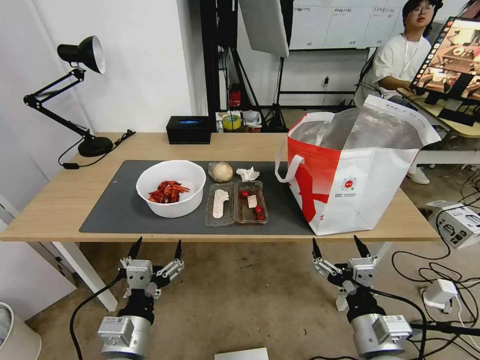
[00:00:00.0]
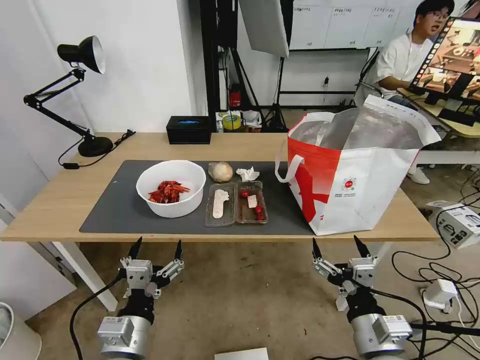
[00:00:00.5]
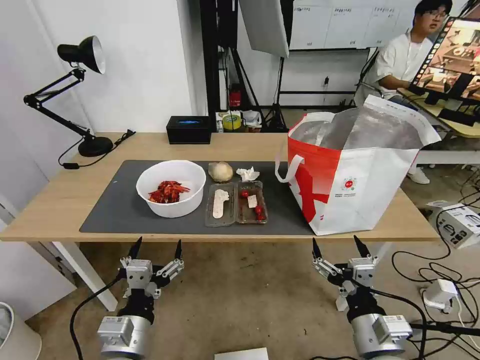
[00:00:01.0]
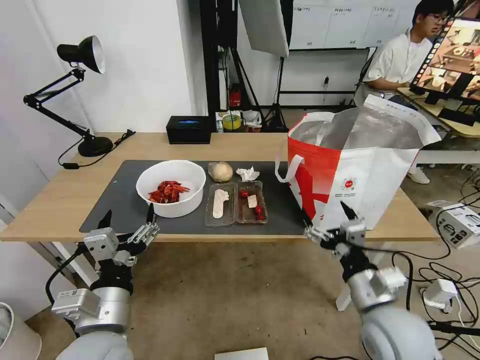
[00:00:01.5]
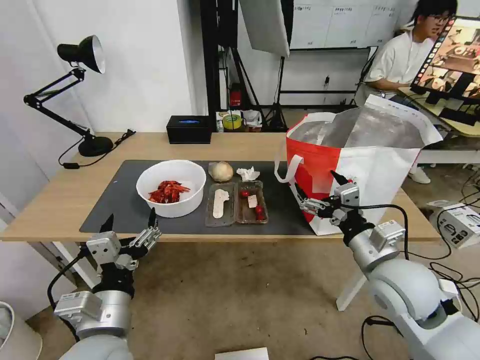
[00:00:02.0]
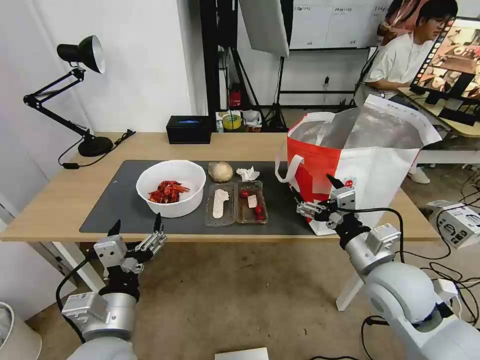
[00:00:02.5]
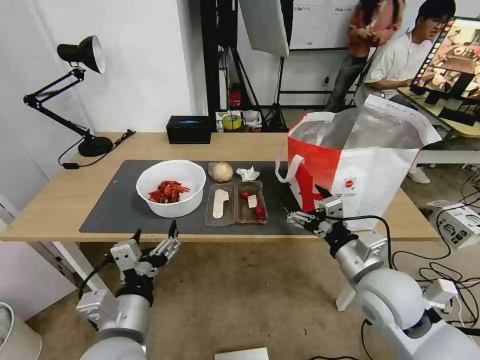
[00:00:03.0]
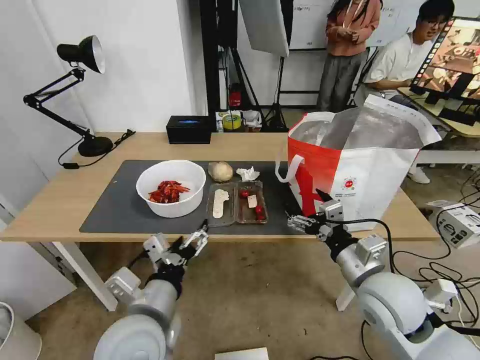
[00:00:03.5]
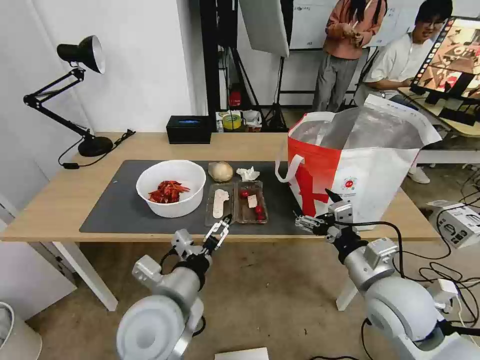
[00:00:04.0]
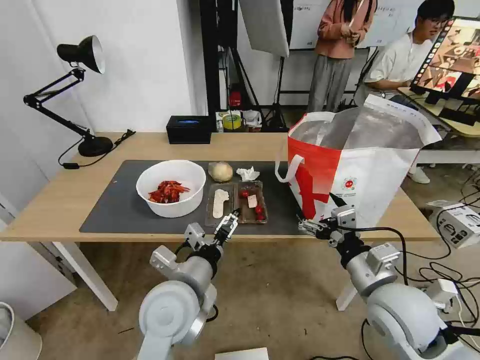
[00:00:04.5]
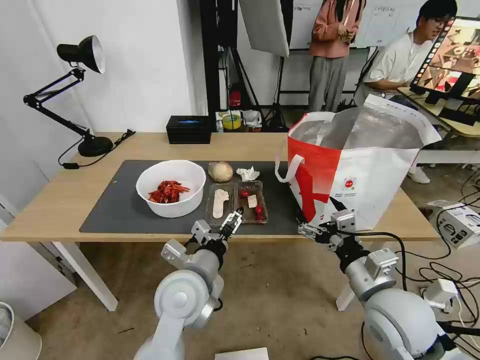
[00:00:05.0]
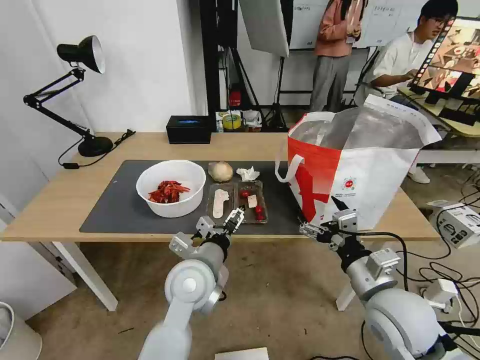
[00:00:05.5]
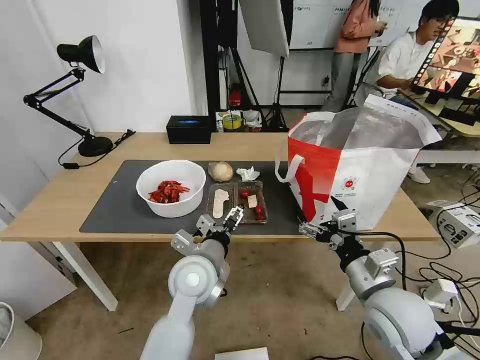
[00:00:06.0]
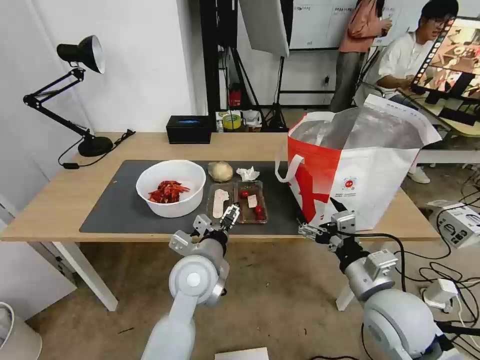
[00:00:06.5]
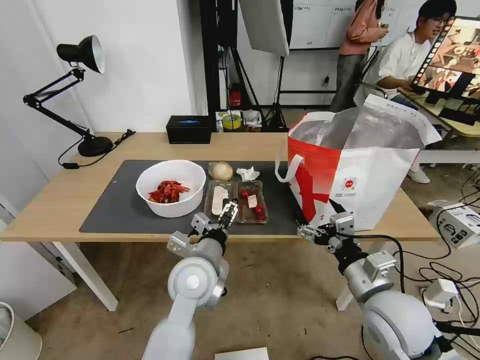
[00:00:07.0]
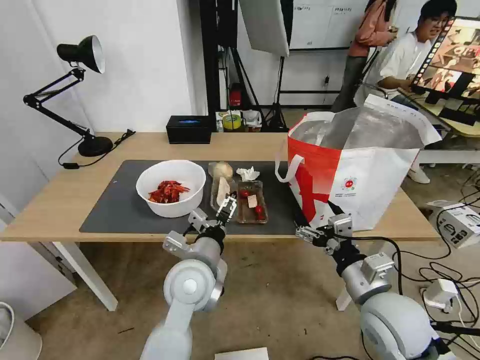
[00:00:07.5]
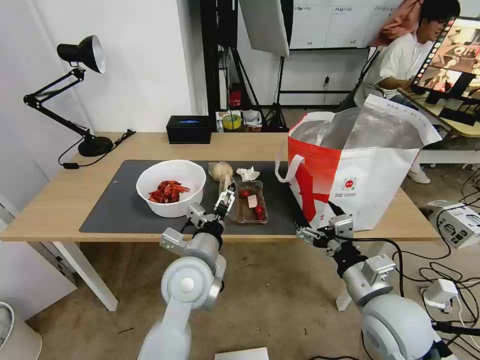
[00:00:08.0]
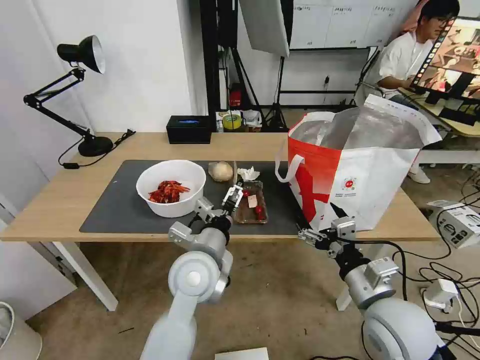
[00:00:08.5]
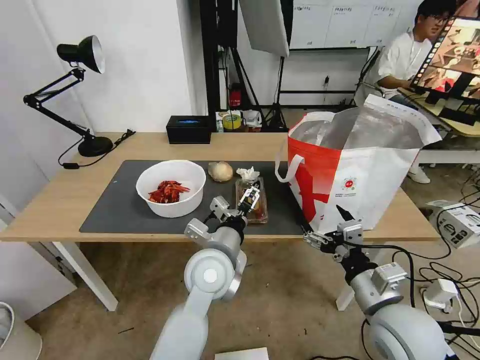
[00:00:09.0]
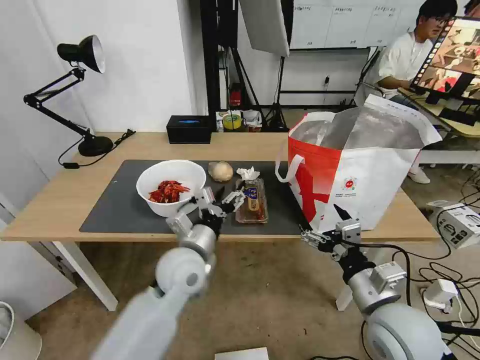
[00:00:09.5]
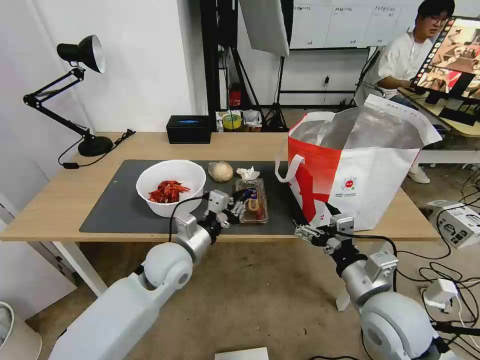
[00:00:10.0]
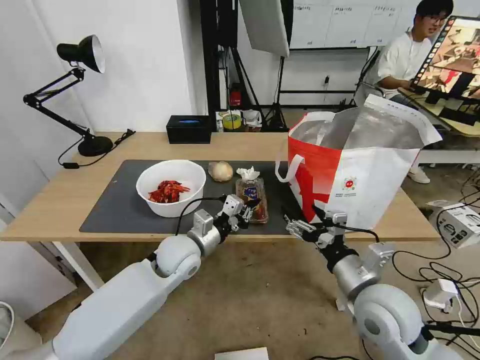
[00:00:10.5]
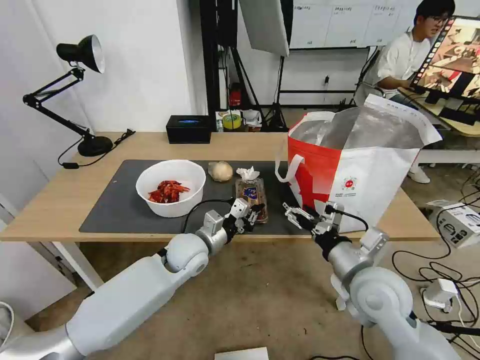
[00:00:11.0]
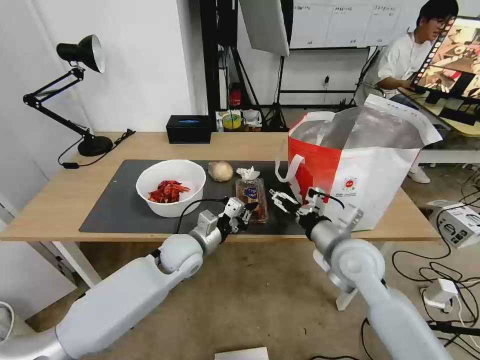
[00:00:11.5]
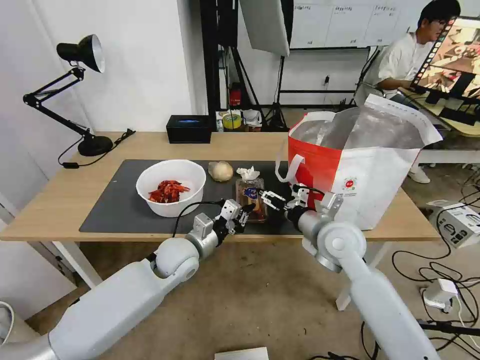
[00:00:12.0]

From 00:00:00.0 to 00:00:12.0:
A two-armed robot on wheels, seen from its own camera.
Task of the whole recording: Pick up the trash from the table and place it into the takeout bag.
From 00:00:02.0 to 00:00:04.0: The left gripper travels to the right and forward by approximately 10 cm.
From 00:00:04.0 to 00:00:06.0: The left gripper moves forward, some 10 cm.
From 00:00:06.0 to 00:00:08.0: The grippers move only a little.
From 00:00:08.0 to 00:00:10.0: The left gripper goes approximately 10 cm to the left and forward, and closes up.
From 00:00:10.0 to 00:00:12.0: The right gripper is displaced forward by roughly 15 cm.

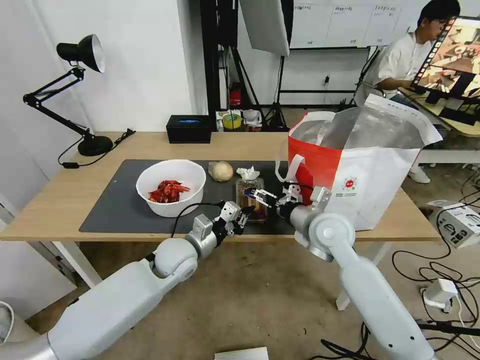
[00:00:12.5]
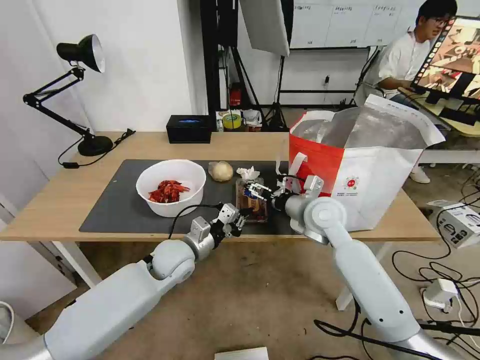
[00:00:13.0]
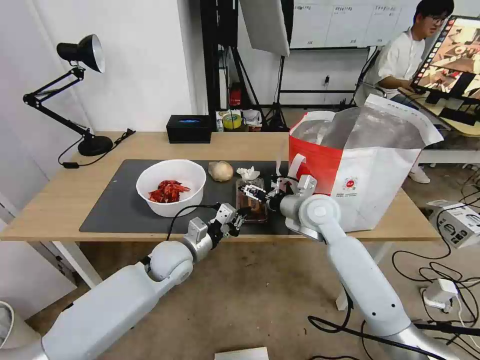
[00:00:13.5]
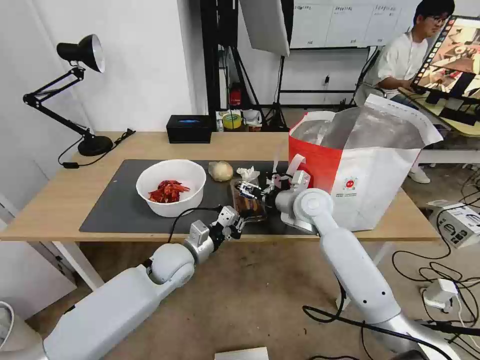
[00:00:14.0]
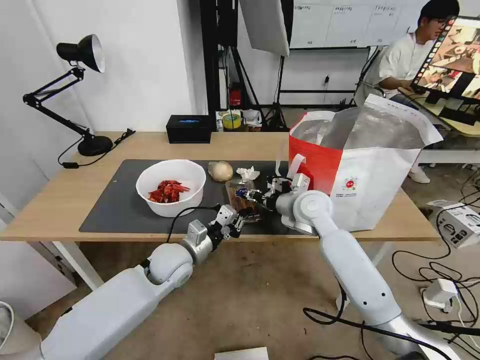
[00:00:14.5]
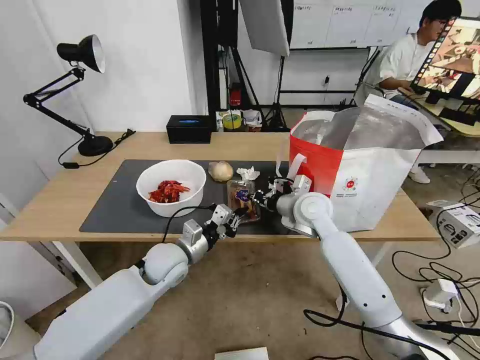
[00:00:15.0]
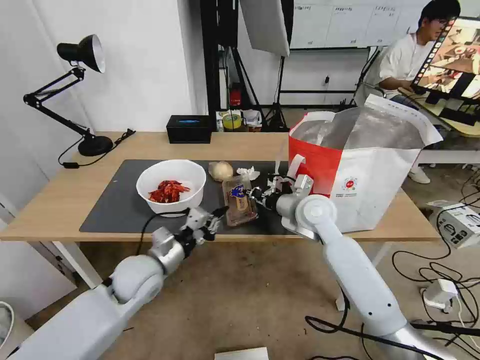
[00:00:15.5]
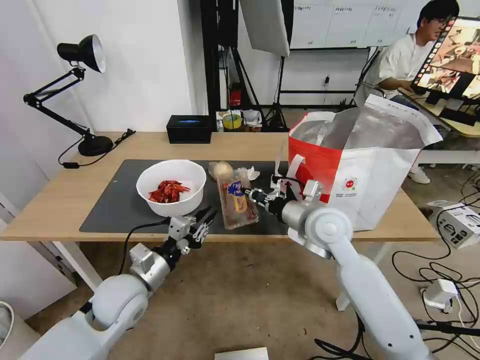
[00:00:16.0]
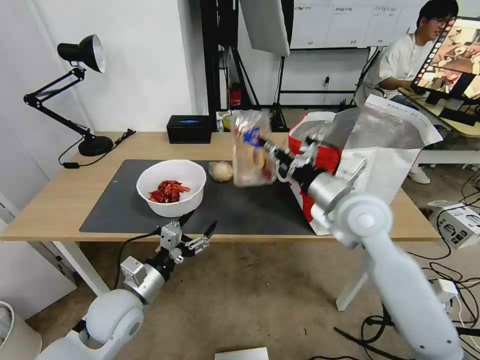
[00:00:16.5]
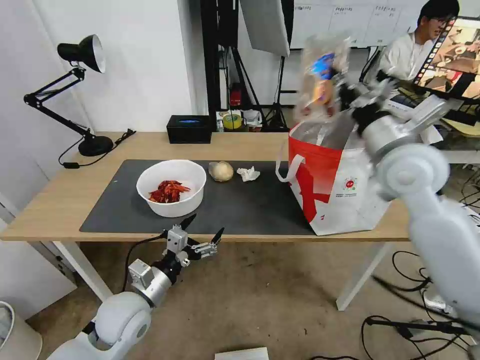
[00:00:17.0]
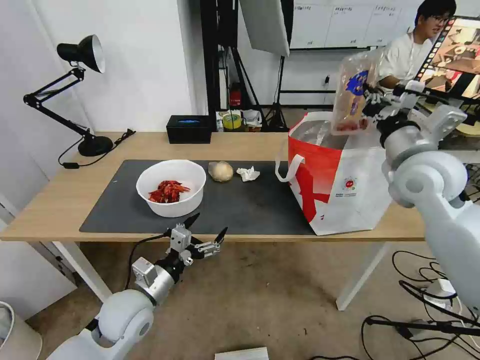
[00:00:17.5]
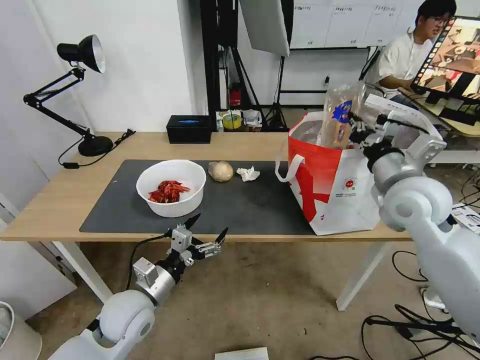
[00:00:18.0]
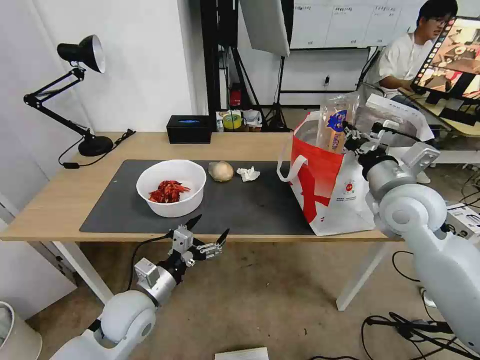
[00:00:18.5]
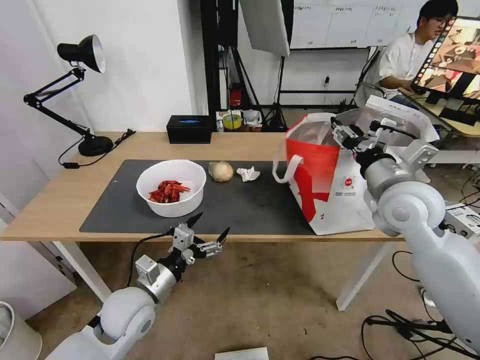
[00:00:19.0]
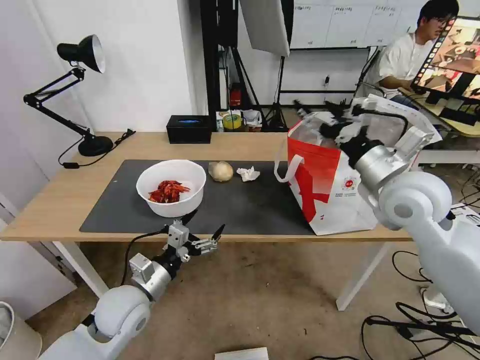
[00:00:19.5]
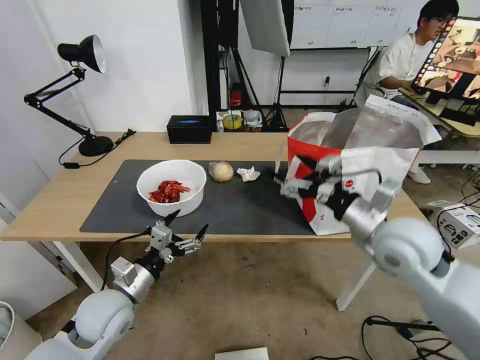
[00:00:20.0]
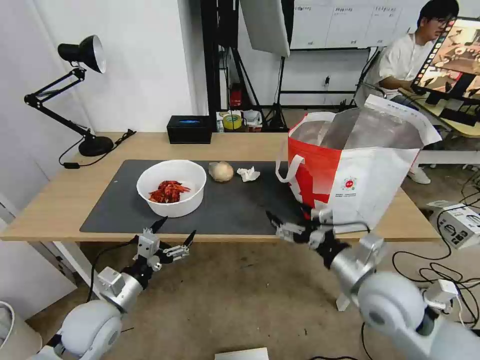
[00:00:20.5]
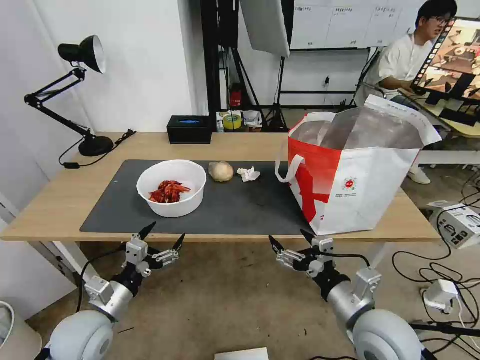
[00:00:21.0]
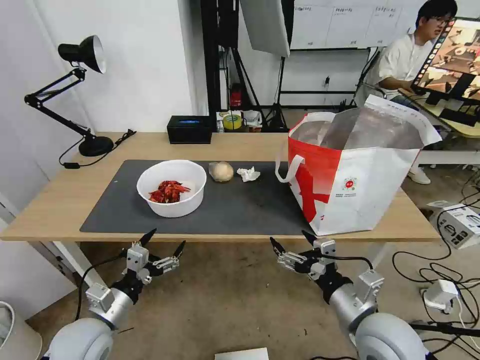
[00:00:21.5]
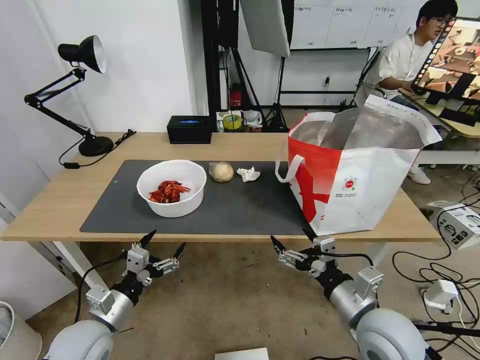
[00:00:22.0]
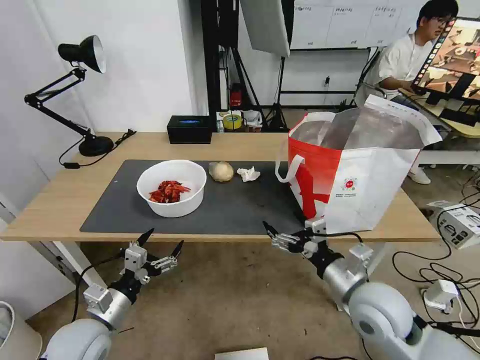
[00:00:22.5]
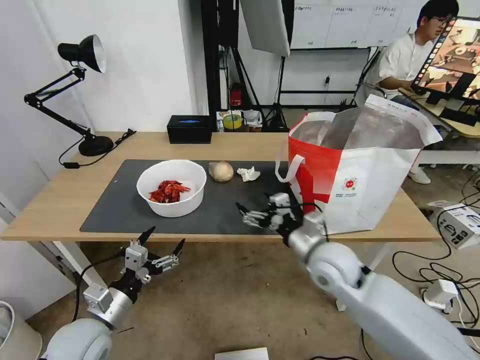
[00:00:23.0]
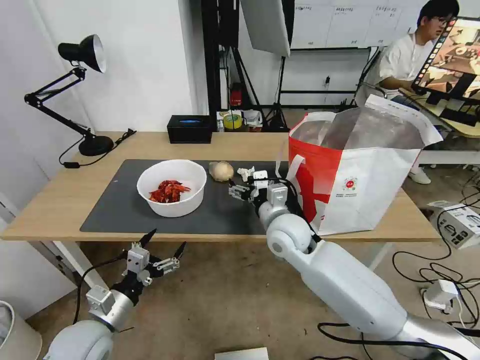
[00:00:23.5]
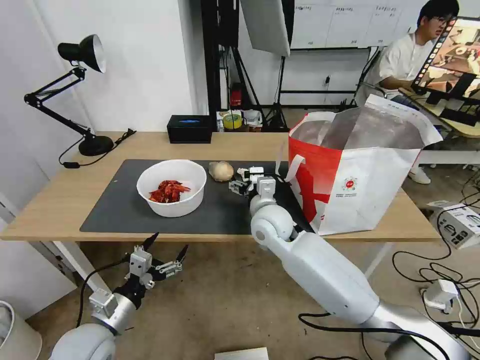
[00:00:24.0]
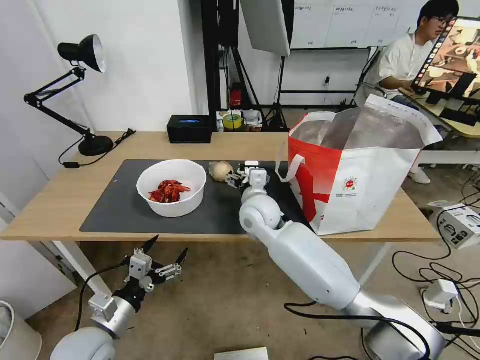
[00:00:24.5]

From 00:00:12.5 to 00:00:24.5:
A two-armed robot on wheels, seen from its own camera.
Task of the whole recording: Pick up the trash from the table and place it into the takeout bag.
From 00:00:12.5 to 00:00:14.5: The right gripper heads forward, covering approximately 5 cm, and closes up.
From 00:00:14.5 to 00:00:16.5: The right gripper heads upward and backward, covering approximately 15 cm, and closes. Meanwhile the left gripper travels backward and to the left by roughly 15 cm, and opens its fingers.
From 00:00:16.5 to 00:00:18.5: The right gripper is displaced to the right by about 10 cm.
From 00:00:18.5 to 00:00:20.5: The right gripper shifts about 15 cm backward and downward, and opens. Meanwhile the left gripper heads to the left, covering some 5 cm.
From 00:00:22.5 to 00:00:24.5: The right gripper travels forward and to the left by approximately 30 cm.

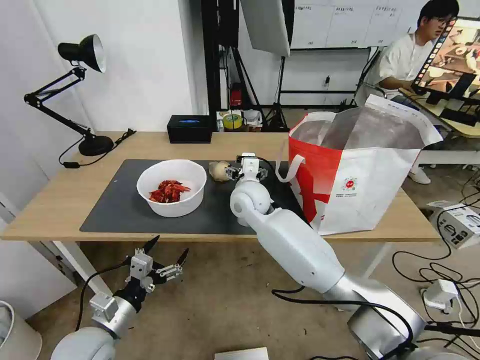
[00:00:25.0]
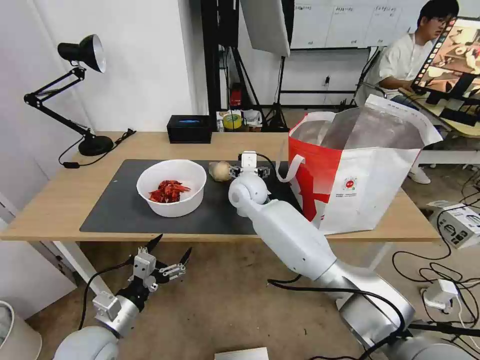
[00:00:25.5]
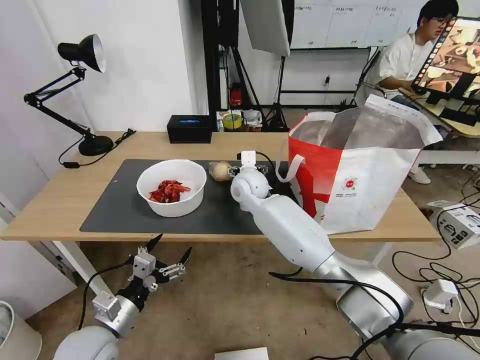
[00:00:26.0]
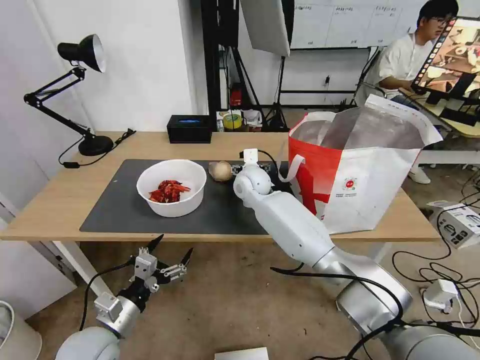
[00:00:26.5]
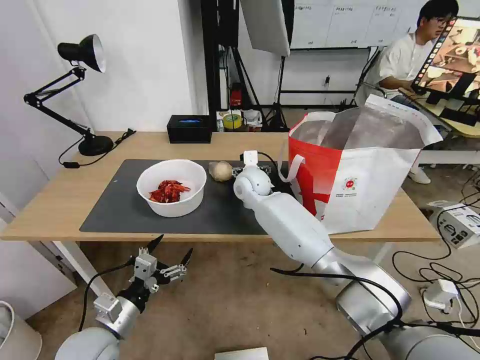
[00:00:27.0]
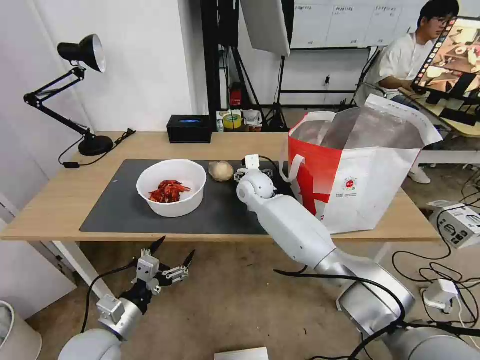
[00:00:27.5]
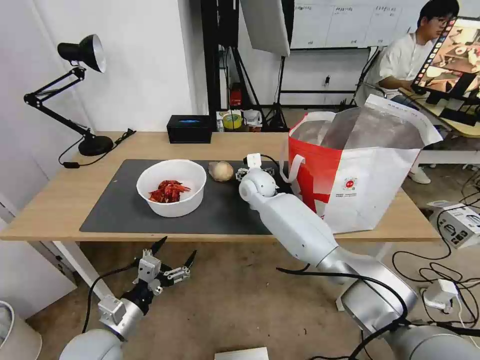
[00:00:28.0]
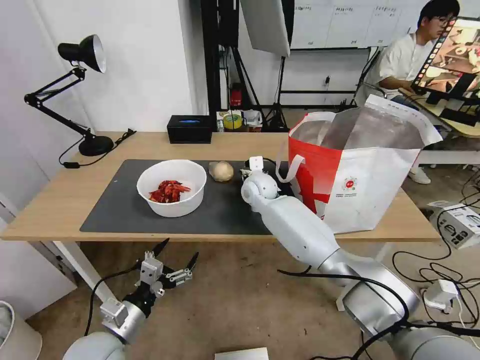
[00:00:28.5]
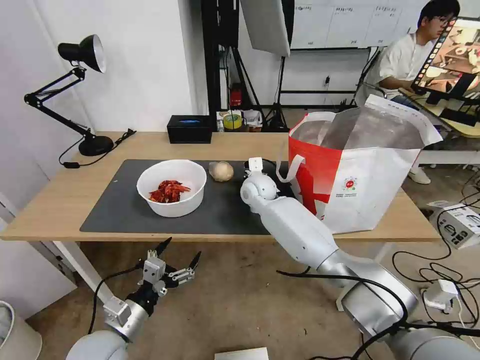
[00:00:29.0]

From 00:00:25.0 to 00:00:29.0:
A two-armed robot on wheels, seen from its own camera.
Task of the whole recording: Pick up the trash from the table and place it into the takeout bag.
From 00:00:25.0 to 00:00:27.0: The right gripper moves forward, about 5 cm.
From 00:00:27.0 to 00:00:29.0: The right gripper closes its fingers.
